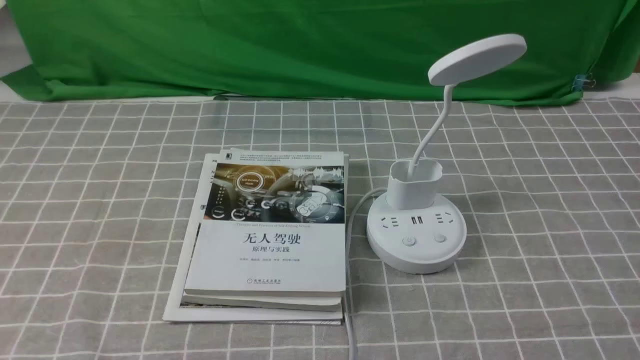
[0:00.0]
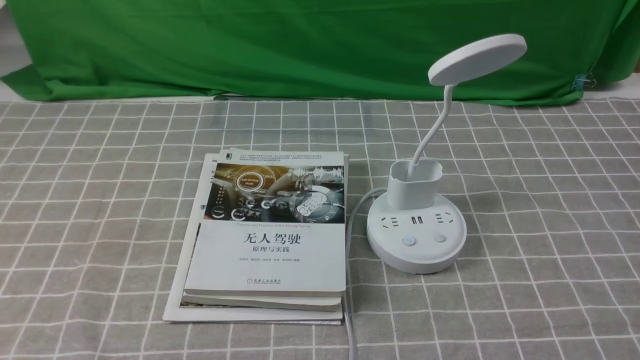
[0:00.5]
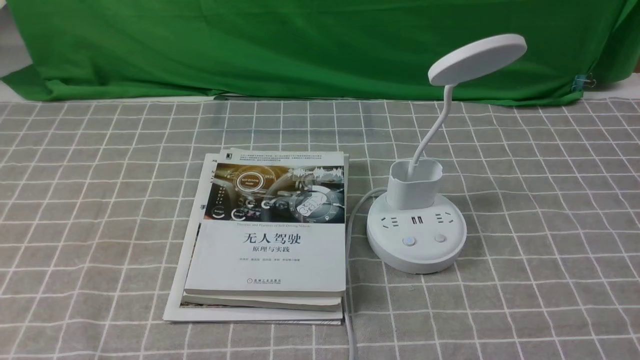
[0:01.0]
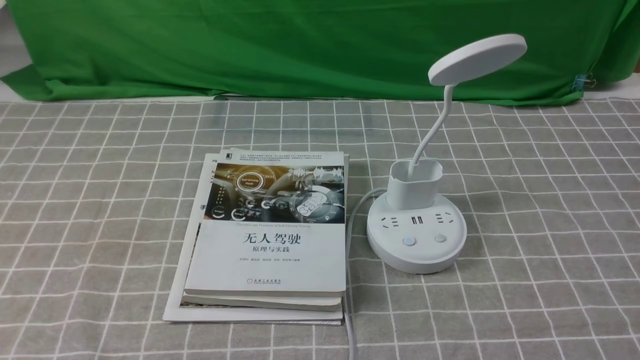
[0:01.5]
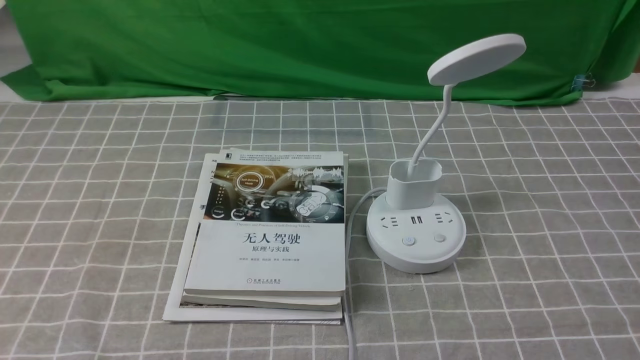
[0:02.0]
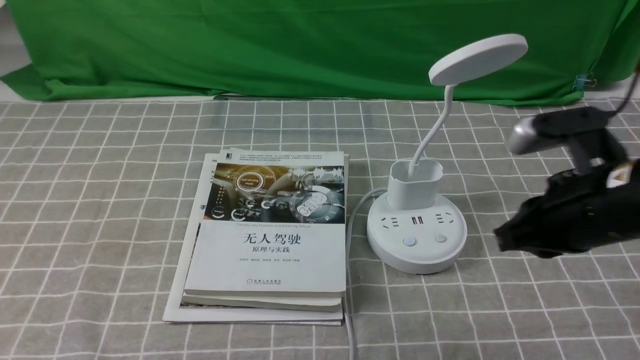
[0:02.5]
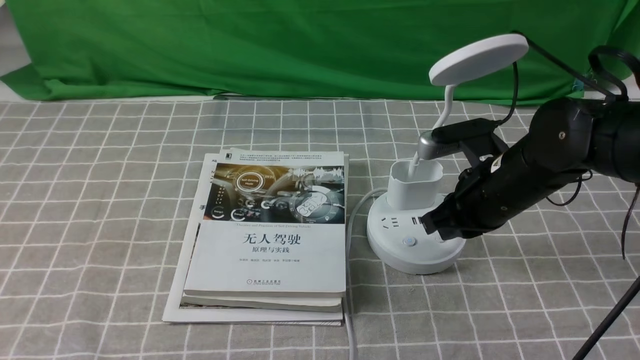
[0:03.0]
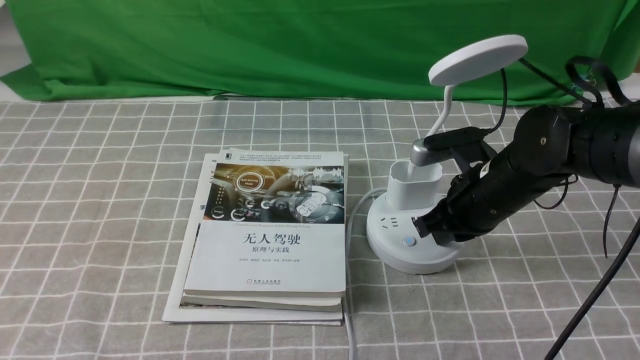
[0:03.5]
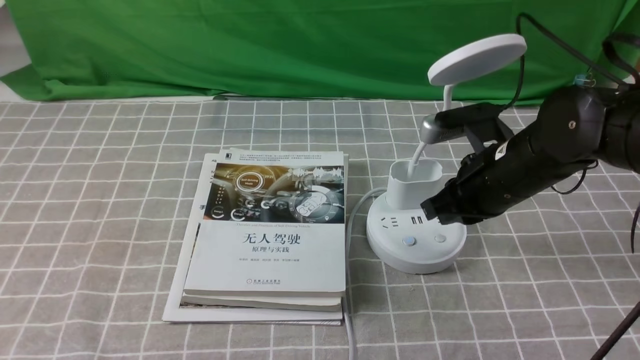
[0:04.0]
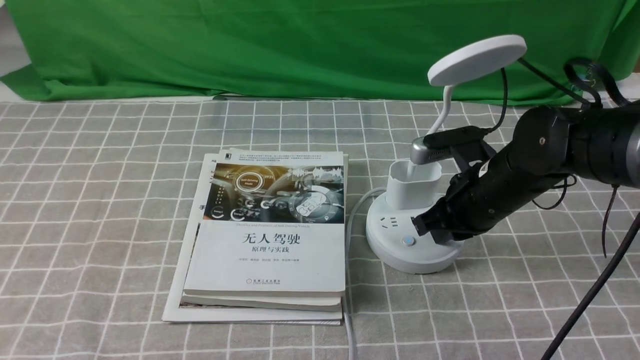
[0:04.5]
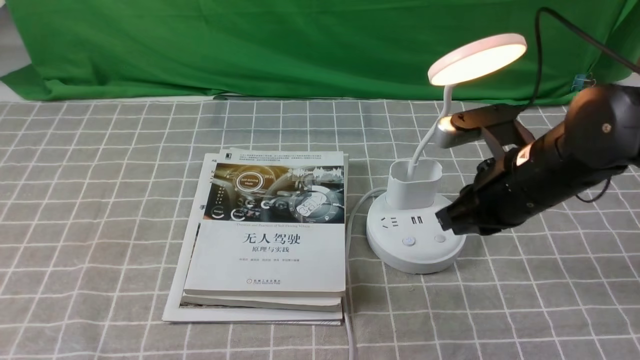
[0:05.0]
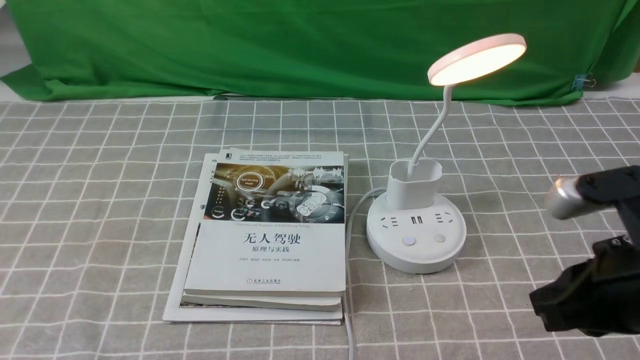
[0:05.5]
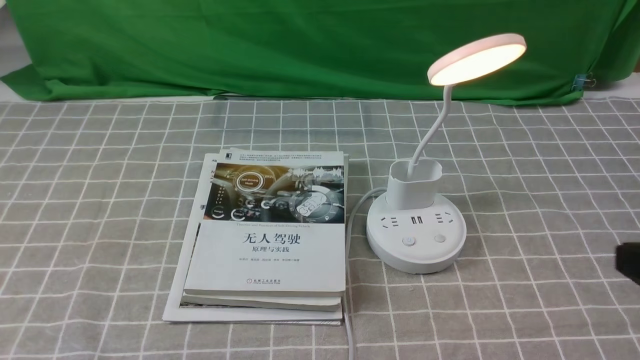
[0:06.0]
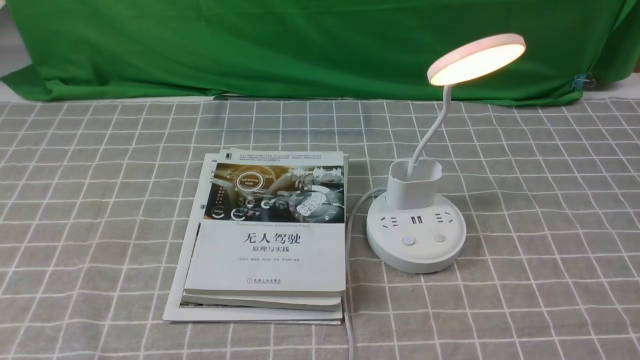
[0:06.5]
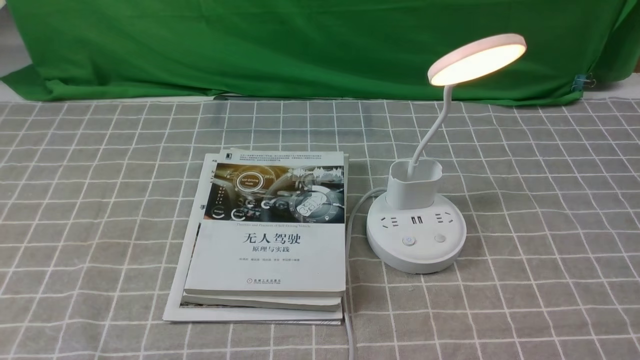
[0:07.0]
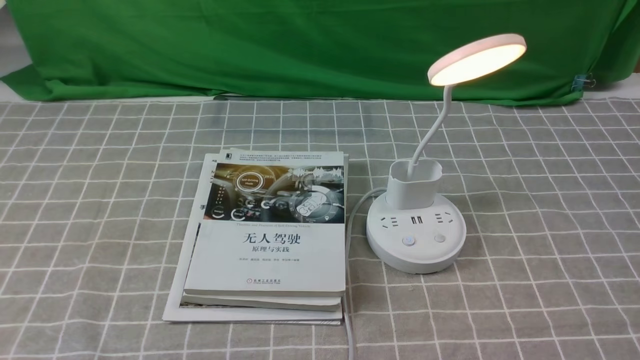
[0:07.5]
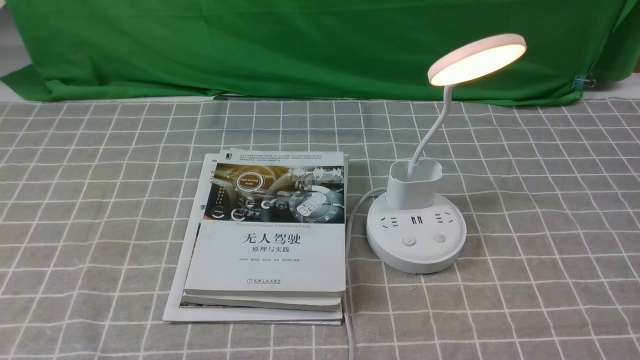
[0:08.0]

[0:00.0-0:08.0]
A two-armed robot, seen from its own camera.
Step, 0:00.0 to 0:05.0: use the right arm to press the button switch on the lamp holder.
0:02.0 to 0:04.0: The right gripper heads forward and to the left, covering about 25 cm.
0:04.0 to 0:06.0: The right gripper heads backward and to the right, covering about 25 cm.
